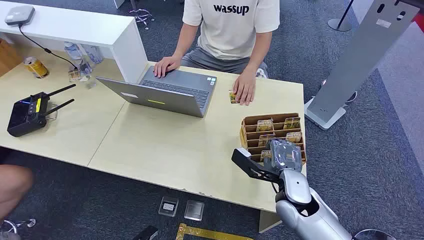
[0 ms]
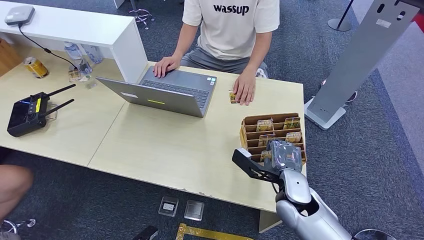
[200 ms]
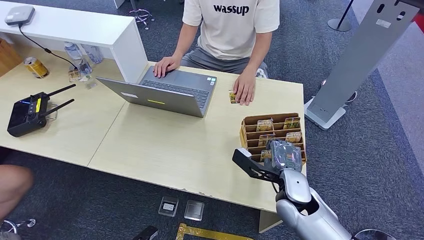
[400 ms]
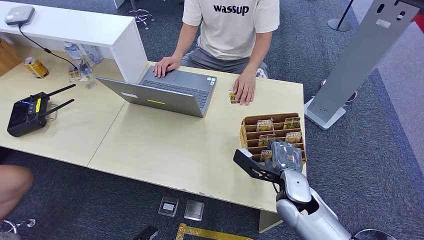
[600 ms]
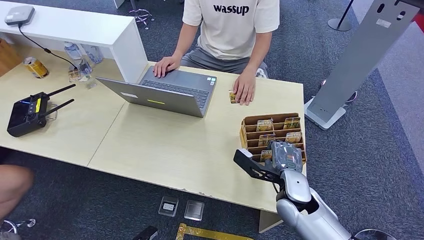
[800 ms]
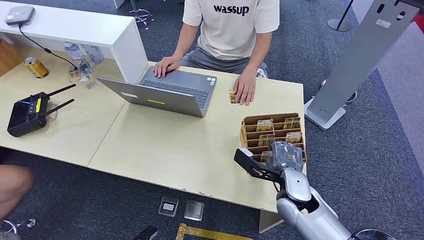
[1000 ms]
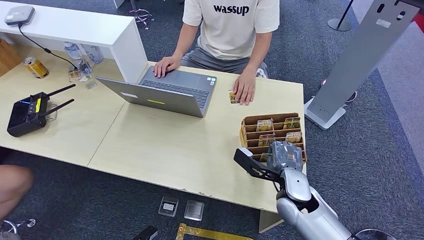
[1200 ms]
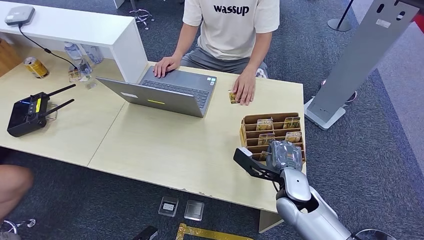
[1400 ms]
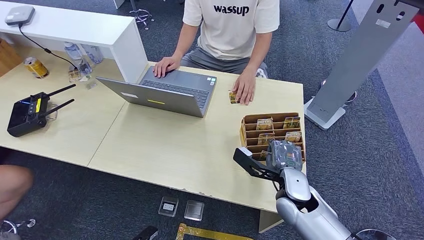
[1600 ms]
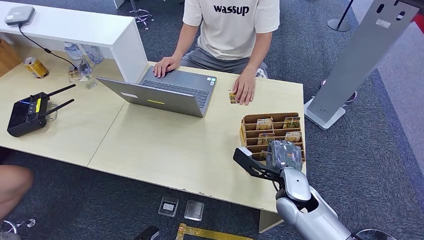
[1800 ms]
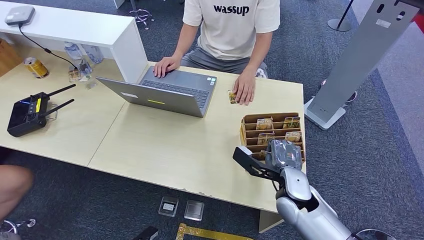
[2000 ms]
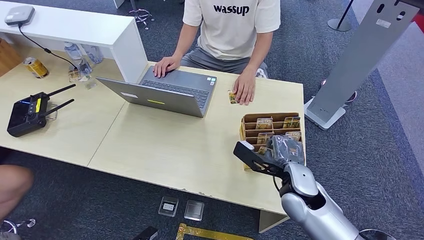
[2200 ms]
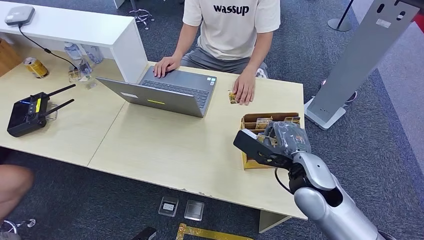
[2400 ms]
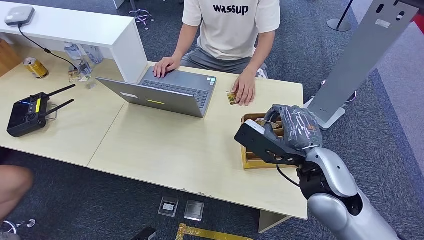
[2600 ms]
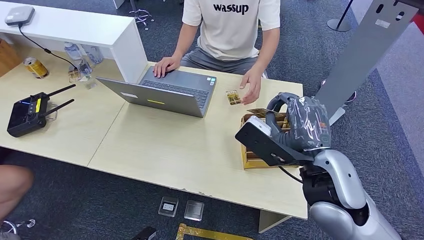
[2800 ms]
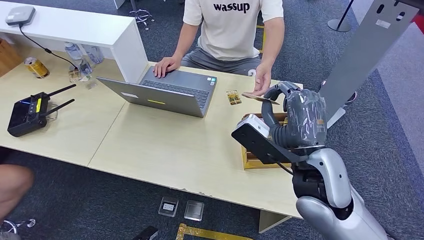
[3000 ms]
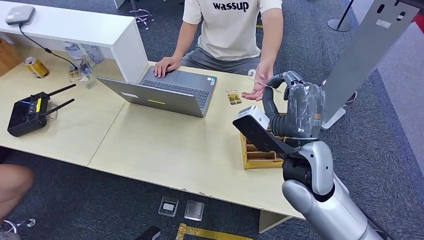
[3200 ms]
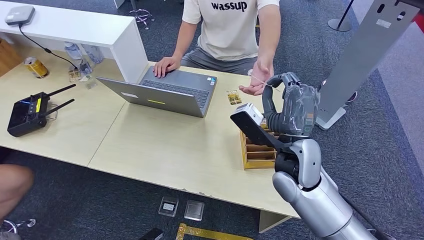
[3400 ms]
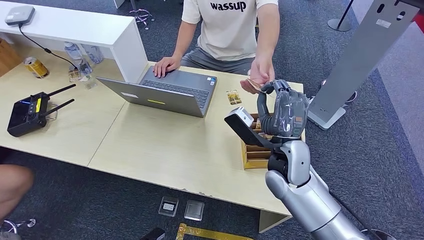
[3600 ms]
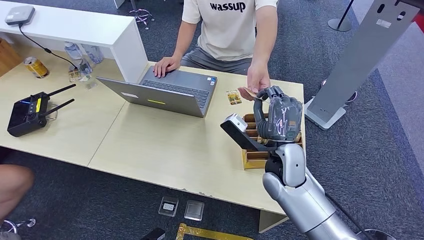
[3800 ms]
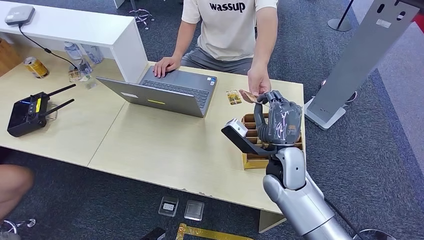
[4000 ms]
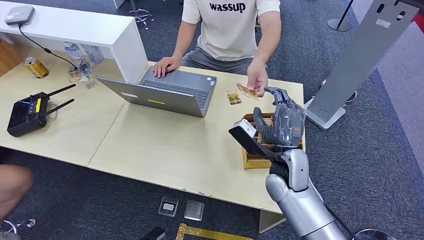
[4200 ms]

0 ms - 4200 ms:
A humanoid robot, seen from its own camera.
Step, 0 ms - 2200 ms: Pick up the room card from the card holder.
Step, 2600 ms - 4200 ms: Hand the room card to the target.
1400 ms - 2800 ms: The right hand heads upward, covering some 15 cm.
2800 ms - 4200 ms: The right hand goes some 10 cm downward.
